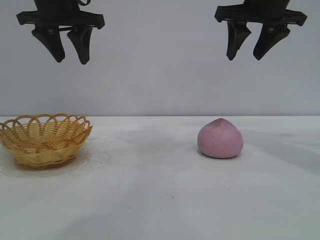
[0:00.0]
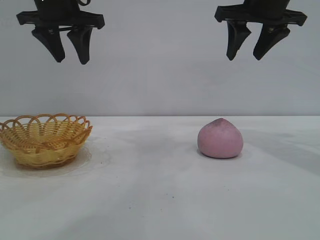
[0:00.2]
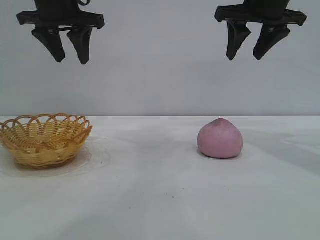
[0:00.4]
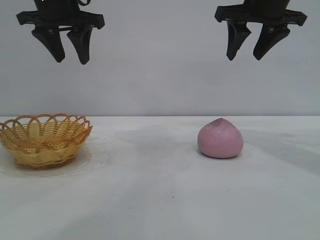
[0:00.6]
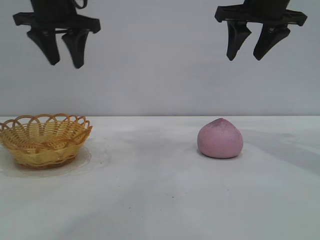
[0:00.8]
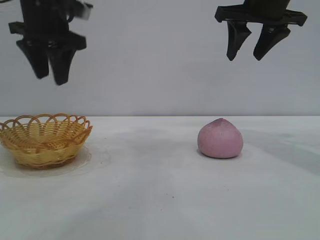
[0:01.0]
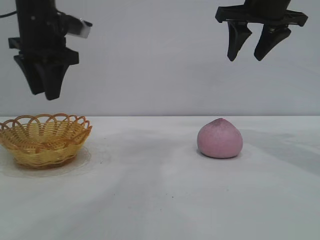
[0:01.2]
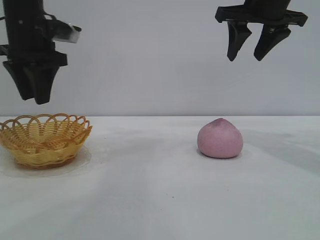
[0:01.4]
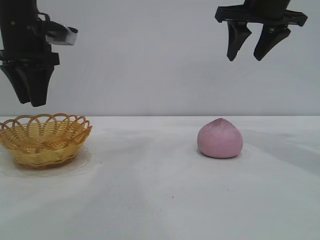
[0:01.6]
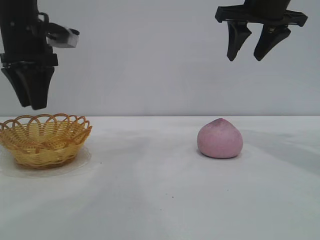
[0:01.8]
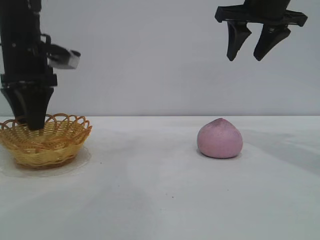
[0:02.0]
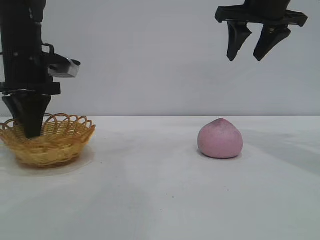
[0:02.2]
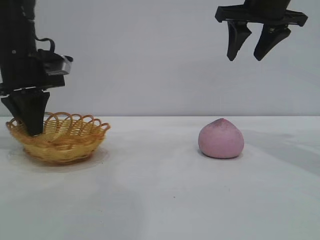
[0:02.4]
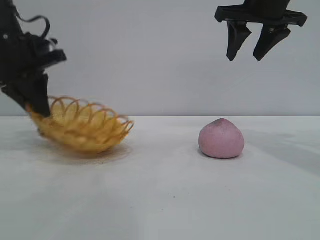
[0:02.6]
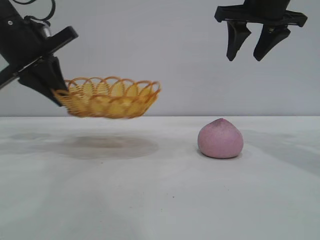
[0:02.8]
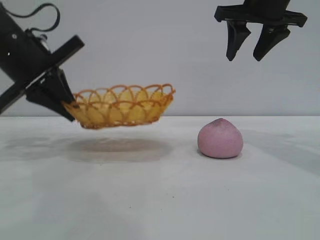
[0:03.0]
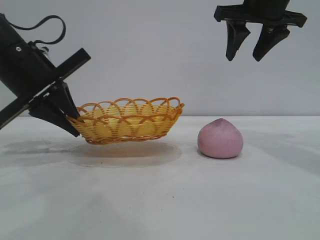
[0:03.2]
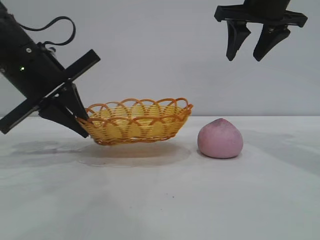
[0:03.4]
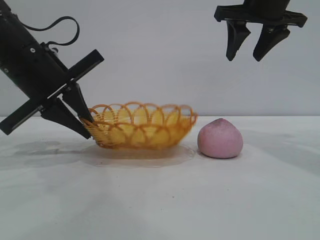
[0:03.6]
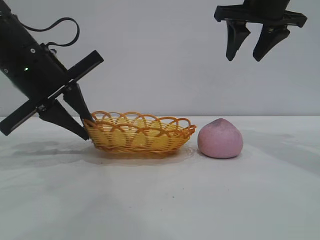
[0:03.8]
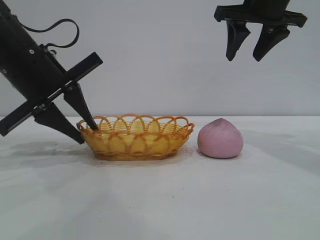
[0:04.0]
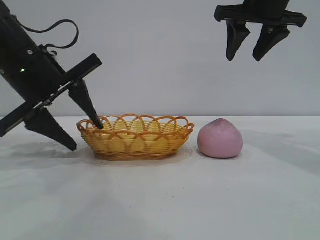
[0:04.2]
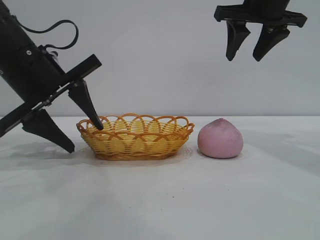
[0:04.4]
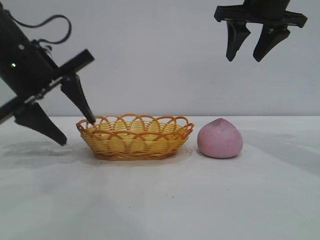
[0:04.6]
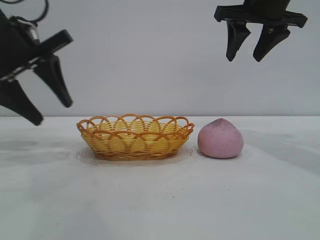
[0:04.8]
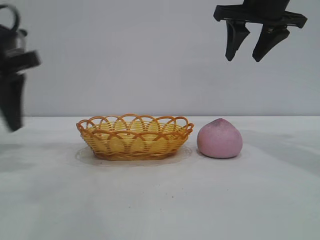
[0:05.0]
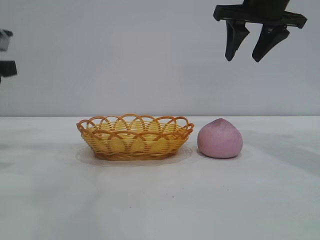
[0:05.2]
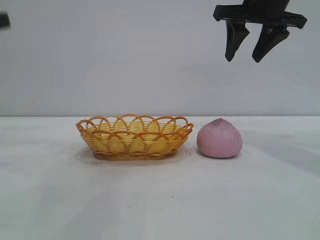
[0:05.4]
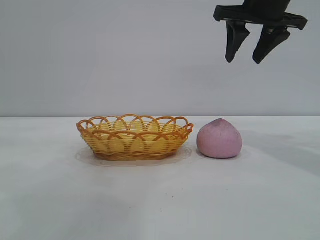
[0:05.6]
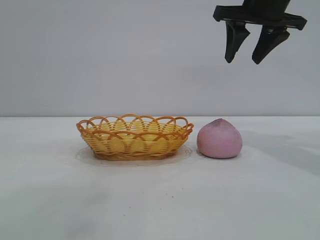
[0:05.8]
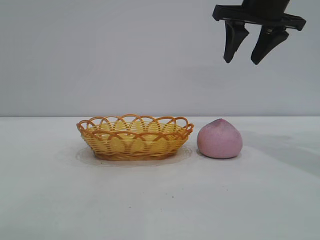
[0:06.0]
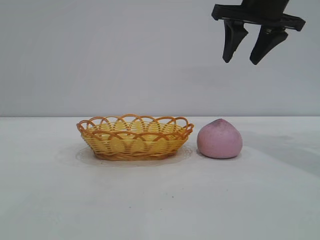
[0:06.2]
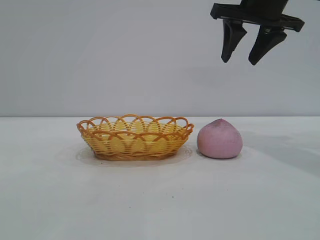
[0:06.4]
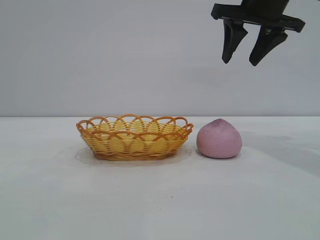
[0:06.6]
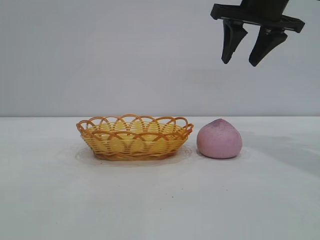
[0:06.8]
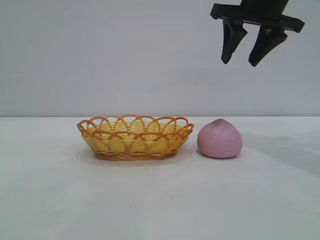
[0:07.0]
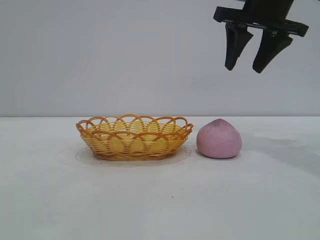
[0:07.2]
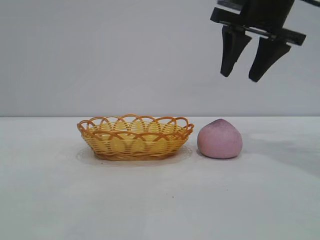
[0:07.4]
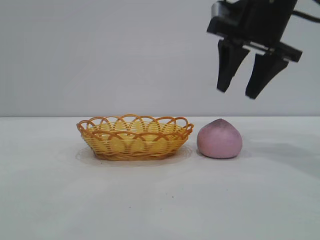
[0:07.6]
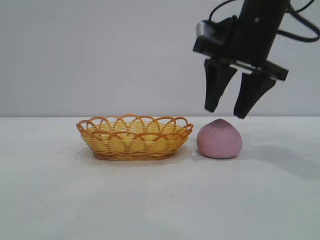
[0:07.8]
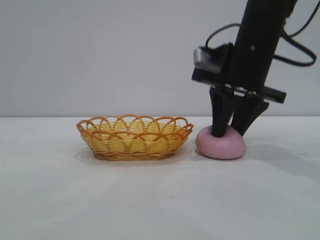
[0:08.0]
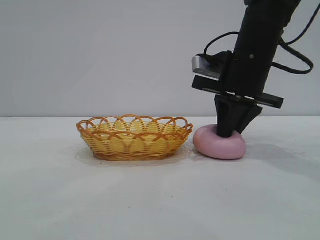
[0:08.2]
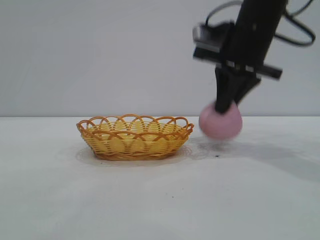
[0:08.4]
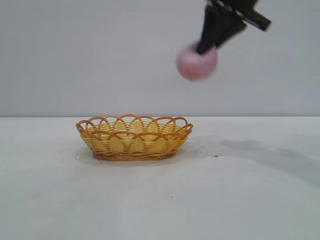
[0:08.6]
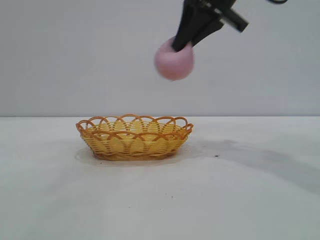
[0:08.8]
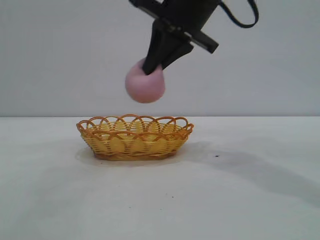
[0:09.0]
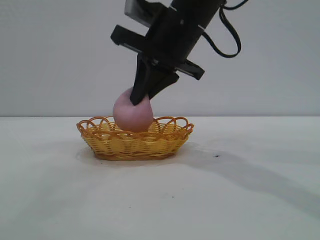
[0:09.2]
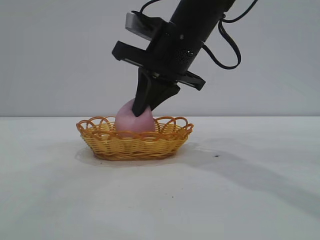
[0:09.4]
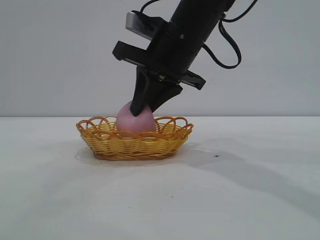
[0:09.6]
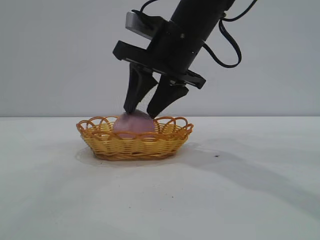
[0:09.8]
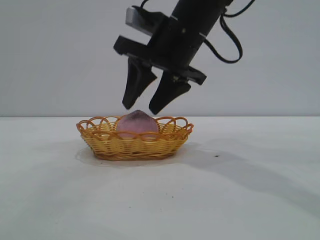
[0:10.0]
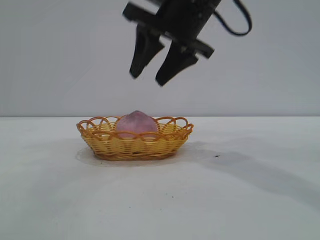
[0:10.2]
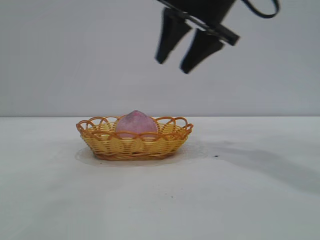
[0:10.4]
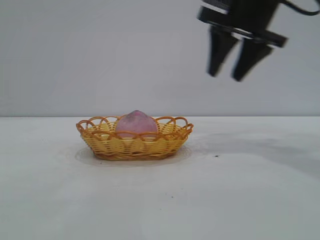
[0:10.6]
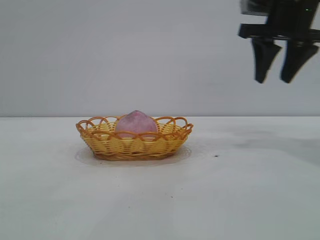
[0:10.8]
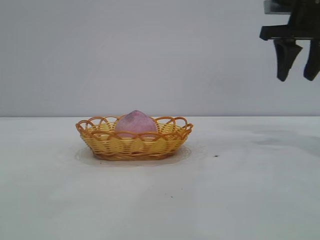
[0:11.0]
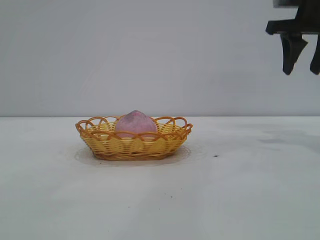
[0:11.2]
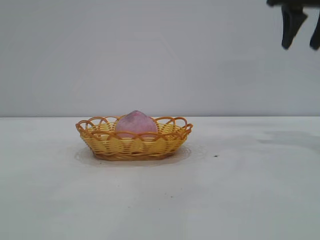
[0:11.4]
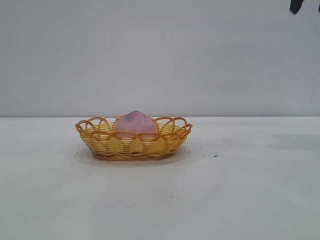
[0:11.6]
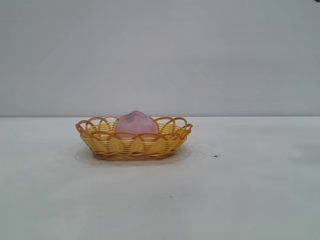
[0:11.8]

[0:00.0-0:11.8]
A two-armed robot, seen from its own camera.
Task of the whole recording: pick up the peach and put it into the basket.
Step, 0:00.0 to 0:04.6: Move the basket to the center of view.
Step, 0:04.8 to 0:08.4: Pick up the peach.
Step, 0:08.6 to 0:10.0: place the peach into the basket.
